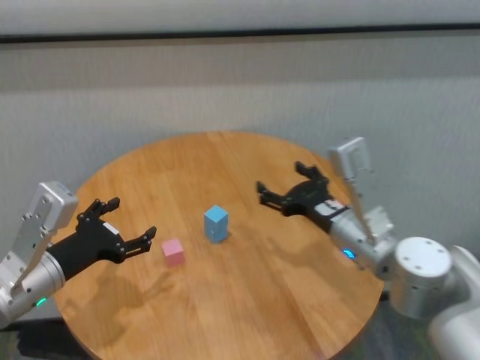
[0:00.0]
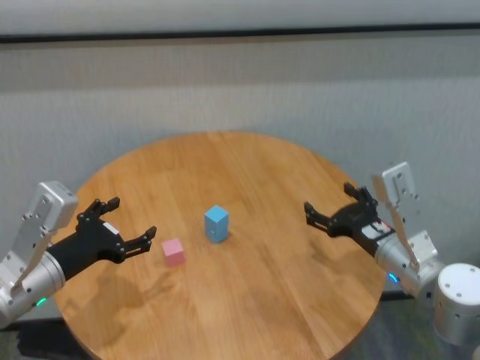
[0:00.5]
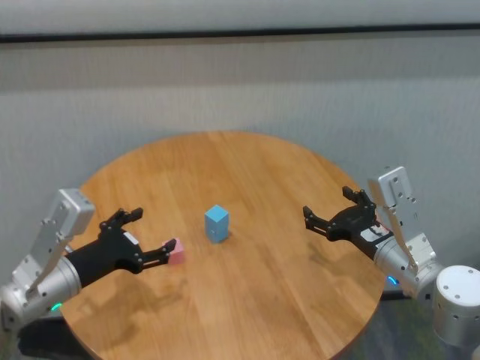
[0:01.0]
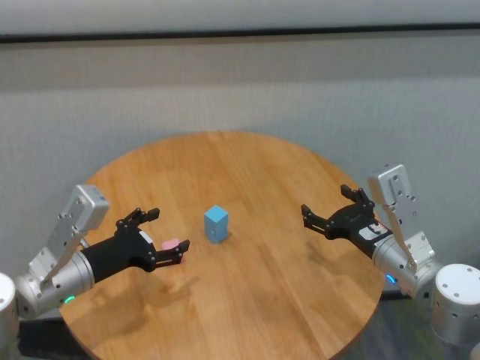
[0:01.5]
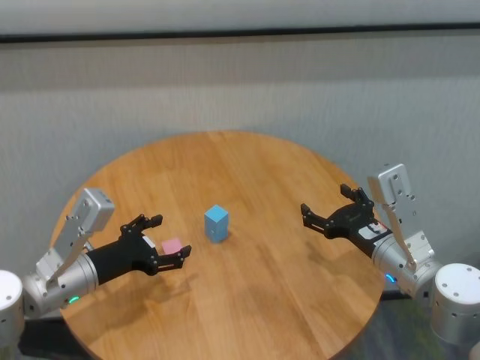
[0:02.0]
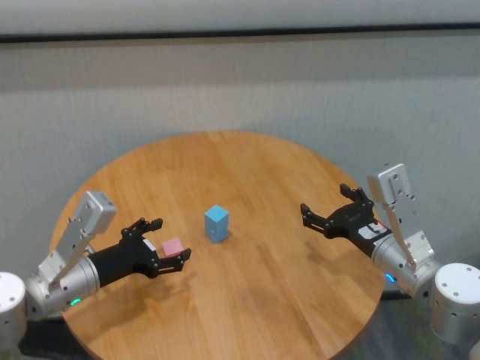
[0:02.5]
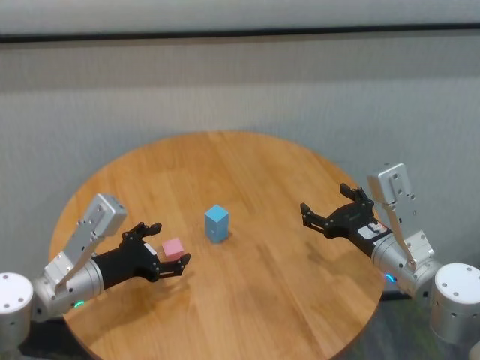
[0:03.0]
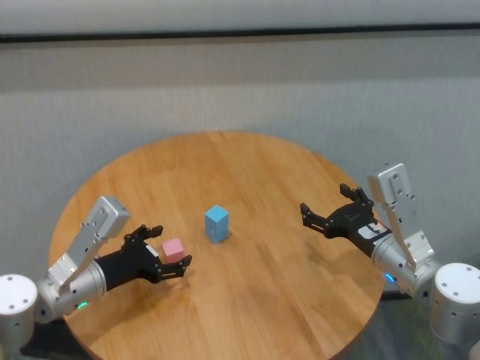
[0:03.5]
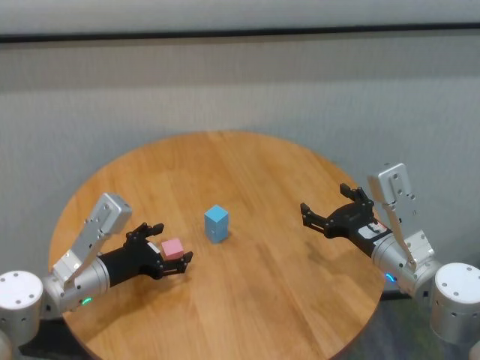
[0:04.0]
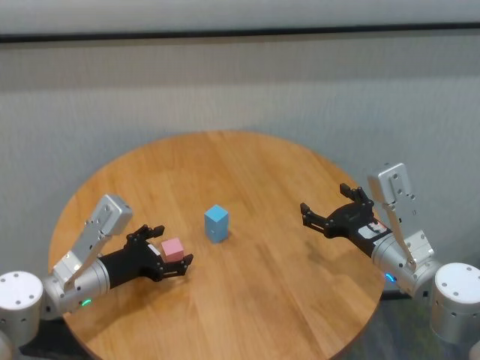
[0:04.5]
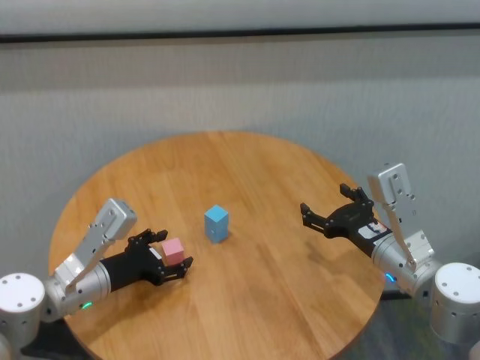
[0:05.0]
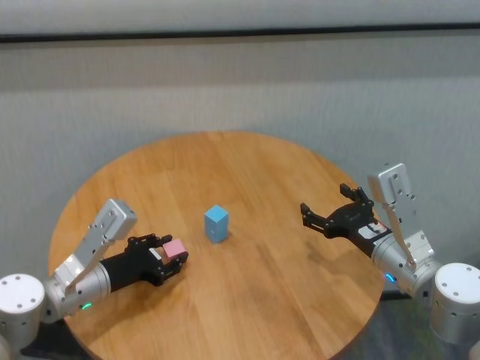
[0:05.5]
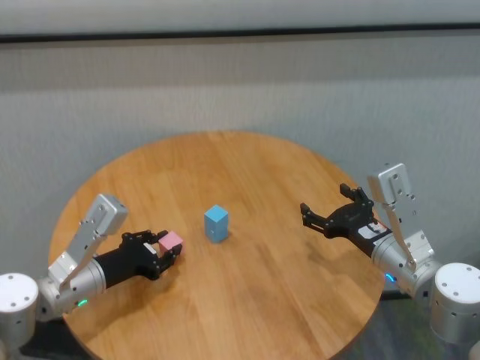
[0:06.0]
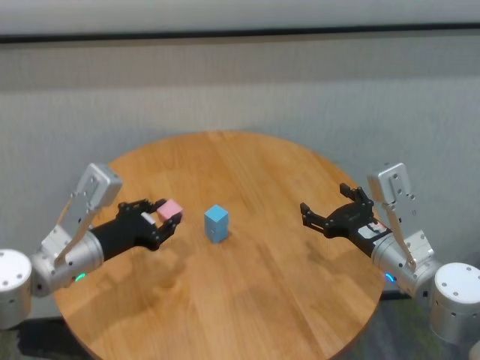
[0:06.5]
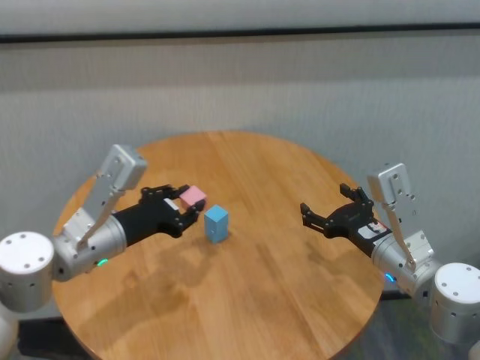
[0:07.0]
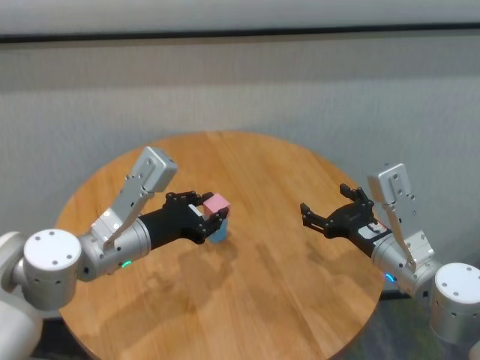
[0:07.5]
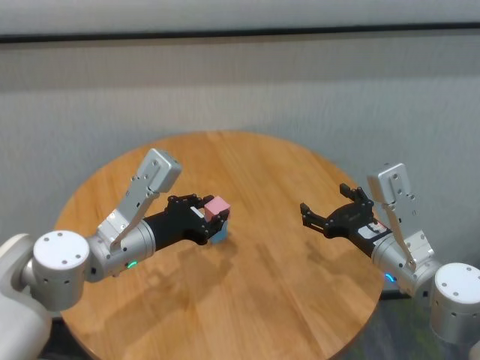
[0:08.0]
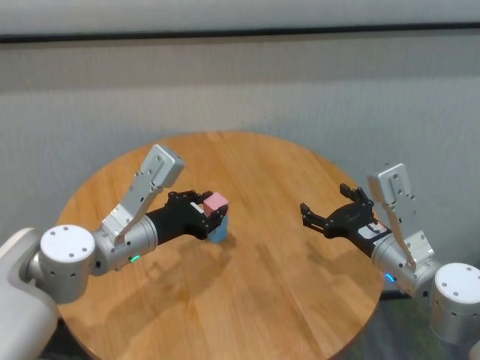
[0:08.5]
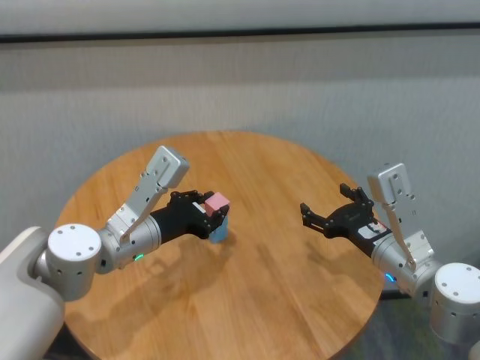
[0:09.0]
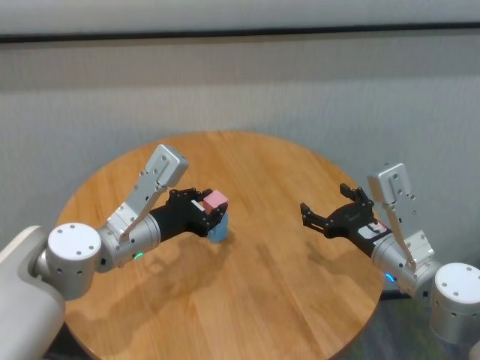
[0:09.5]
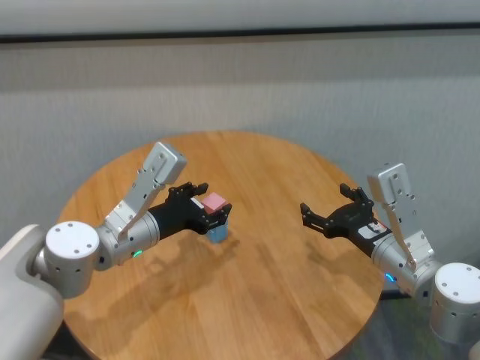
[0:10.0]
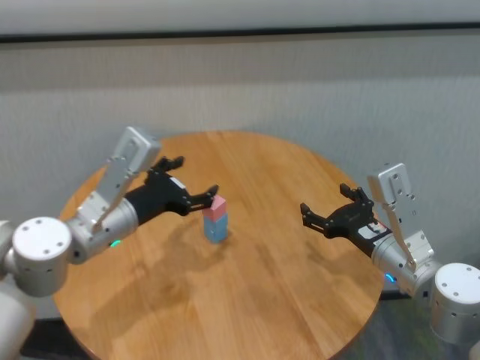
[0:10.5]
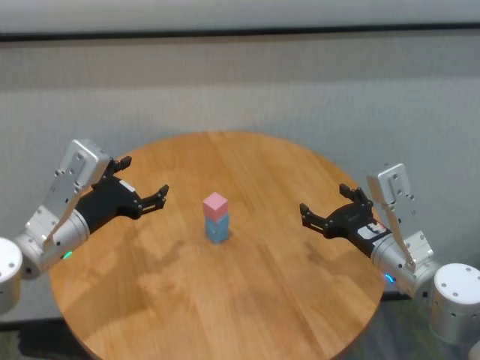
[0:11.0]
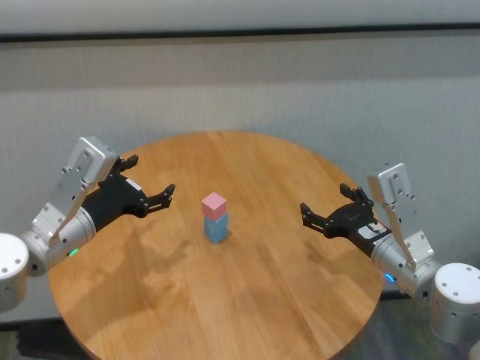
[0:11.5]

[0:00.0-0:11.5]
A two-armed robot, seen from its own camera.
Task of the whole recording: stack building blocks on the table.
Step, 0:00.0 to 0:05.5: Grasp the pink building block with left gripper.
Step, 0:06.0 to 0:09.5: Place the pink building block on the blue building blocks with left gripper.

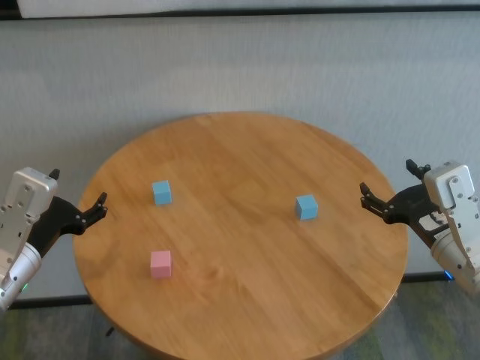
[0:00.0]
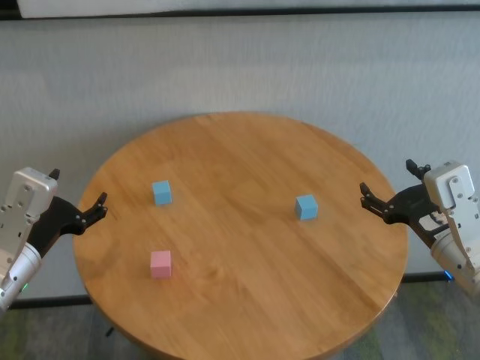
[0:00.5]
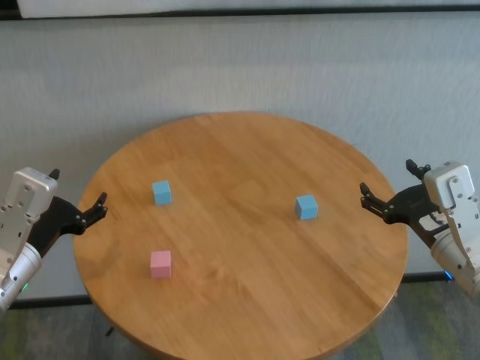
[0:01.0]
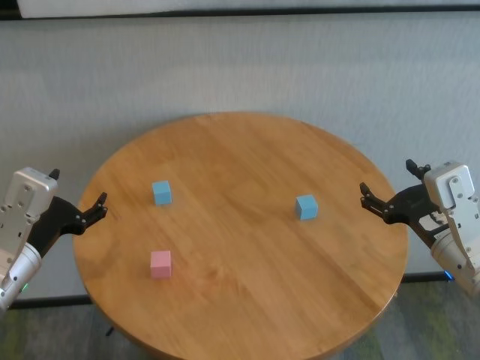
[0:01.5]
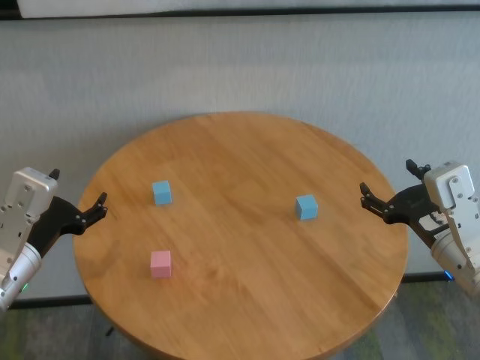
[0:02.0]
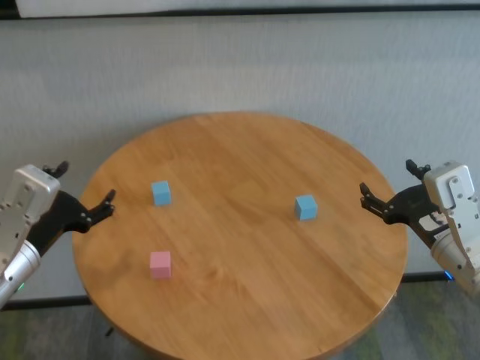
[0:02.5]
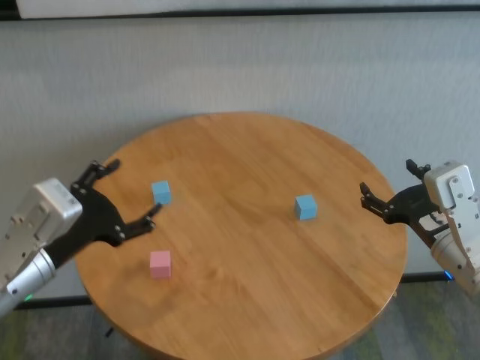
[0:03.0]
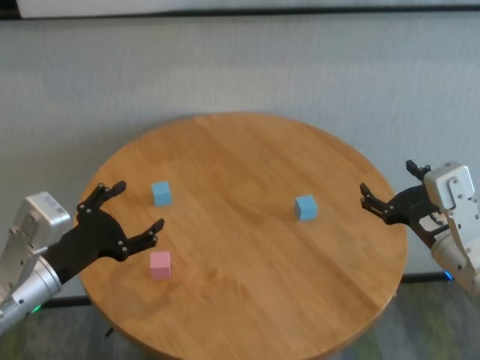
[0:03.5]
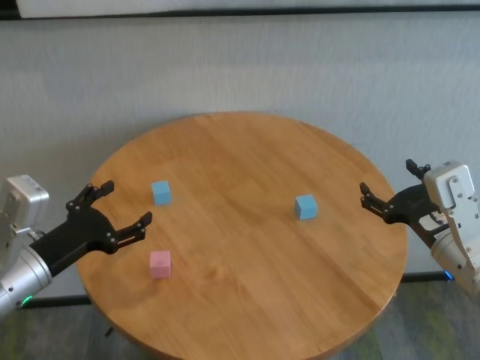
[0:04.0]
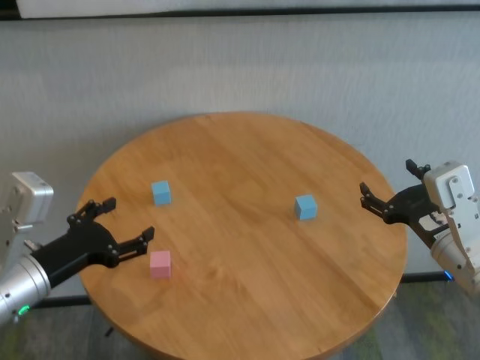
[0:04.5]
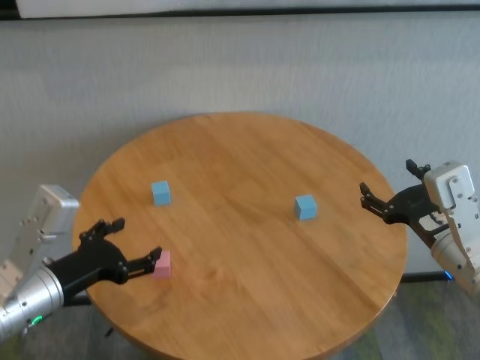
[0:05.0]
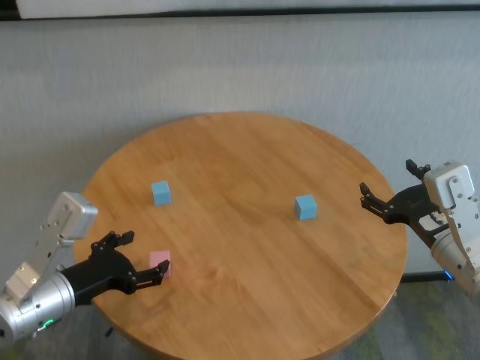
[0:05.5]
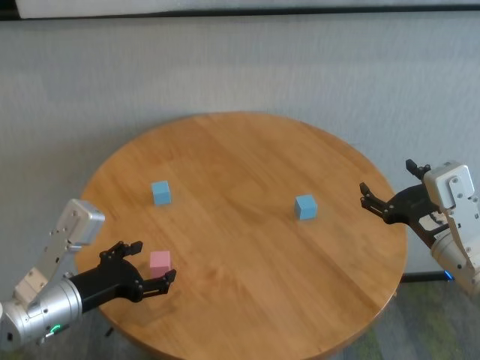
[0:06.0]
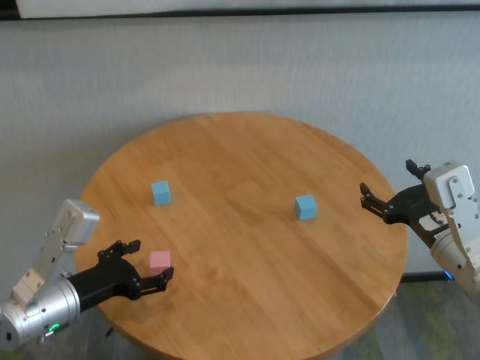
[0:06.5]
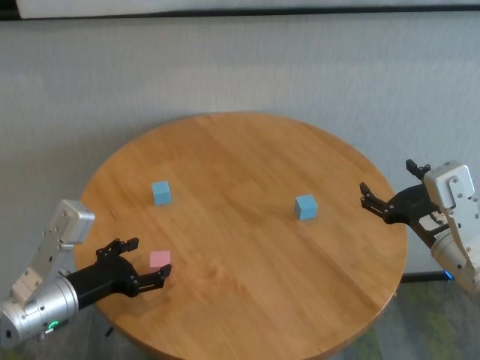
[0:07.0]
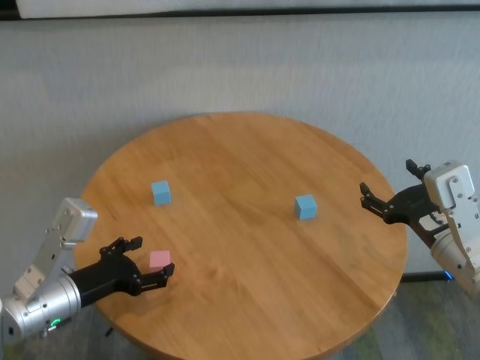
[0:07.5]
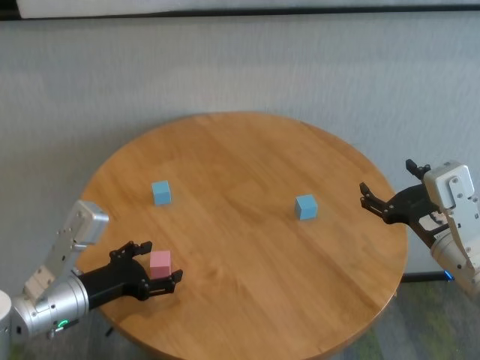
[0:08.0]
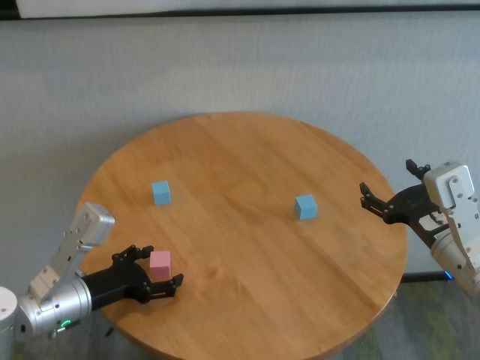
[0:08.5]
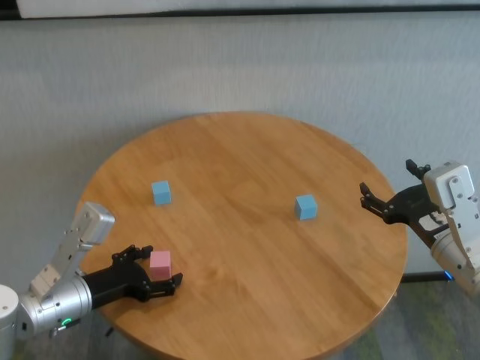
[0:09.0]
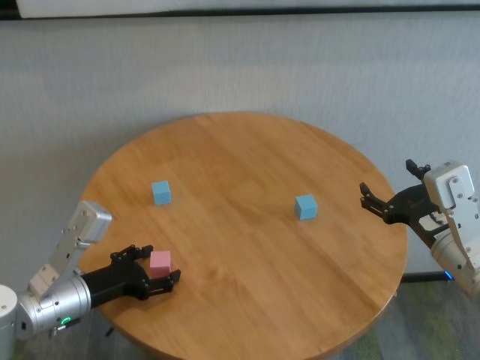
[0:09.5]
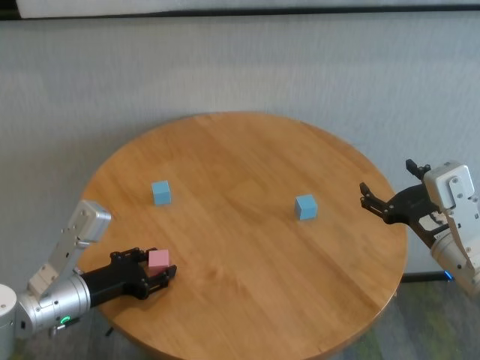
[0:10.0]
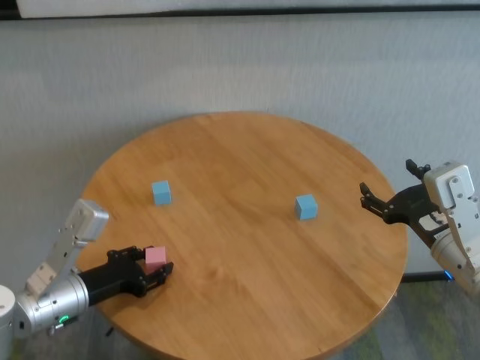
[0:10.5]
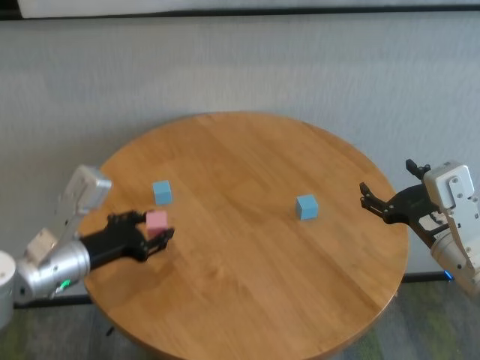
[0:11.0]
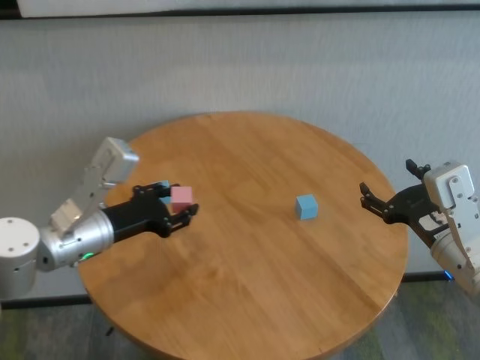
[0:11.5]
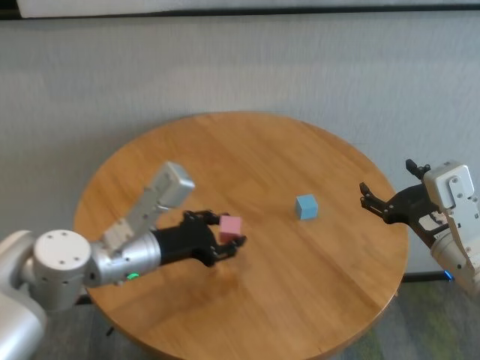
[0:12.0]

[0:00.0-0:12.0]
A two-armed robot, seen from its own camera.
Task of the whole recording: stack building blocks on the table.
Step, 0:00.0 to 0:10.0: Grasp the pink building block with left gripper.

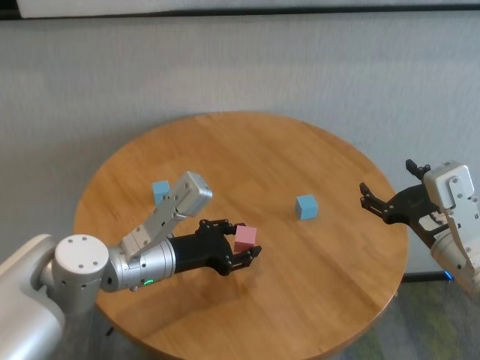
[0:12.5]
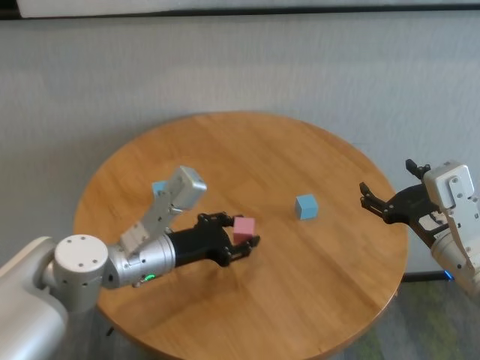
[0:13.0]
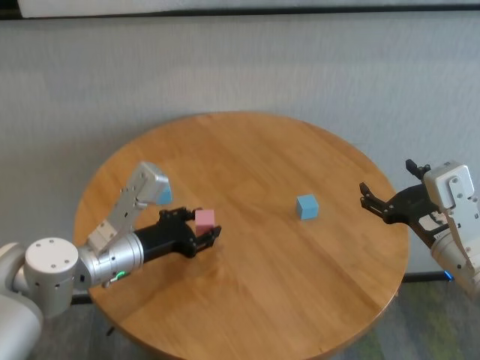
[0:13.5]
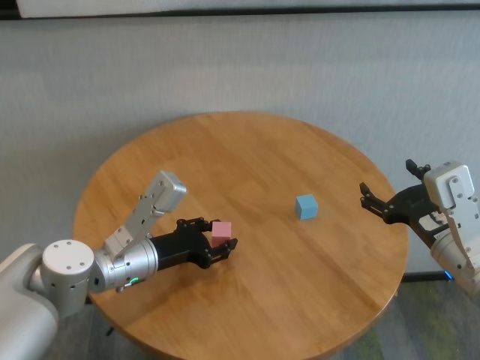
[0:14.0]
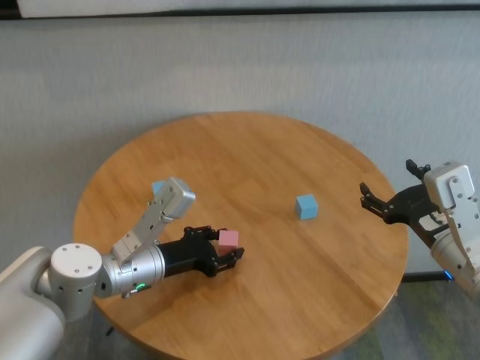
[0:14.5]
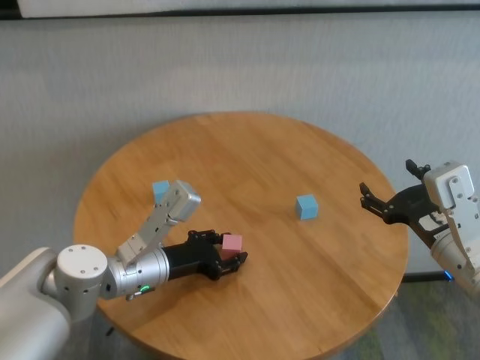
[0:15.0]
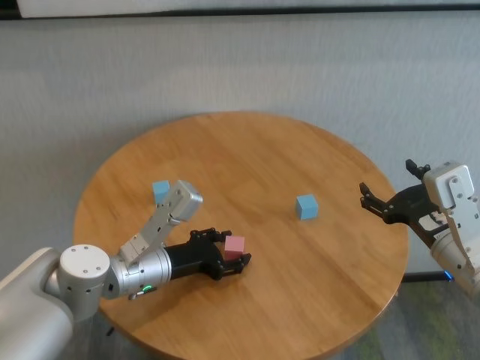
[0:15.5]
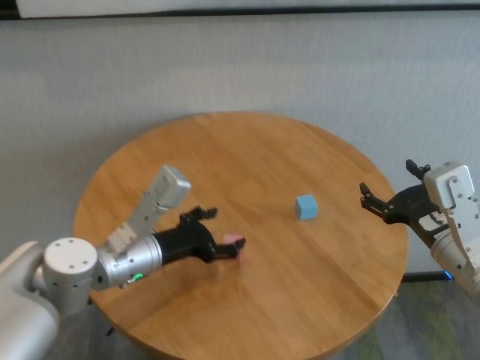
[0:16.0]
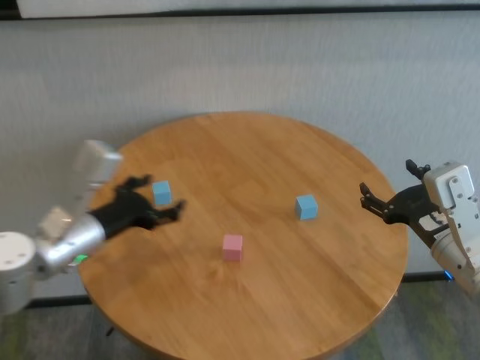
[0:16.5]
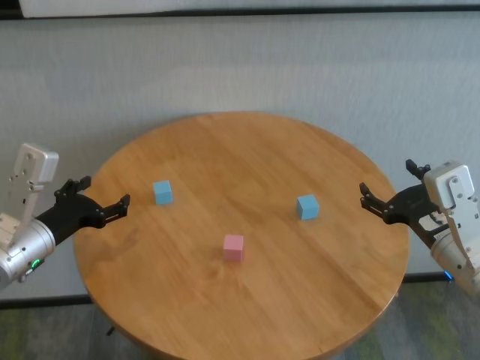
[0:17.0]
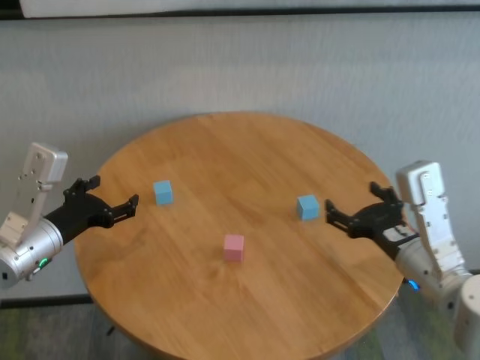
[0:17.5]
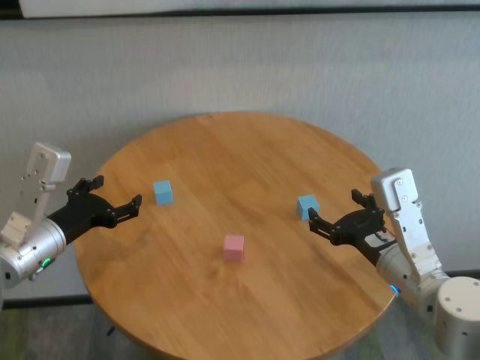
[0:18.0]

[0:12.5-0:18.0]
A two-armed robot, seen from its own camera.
Task of the whole recording: stack building blocks on the table.
Step, 0:12.5 to 0:15.5: Place the pink building block in the center of table with left gripper.
